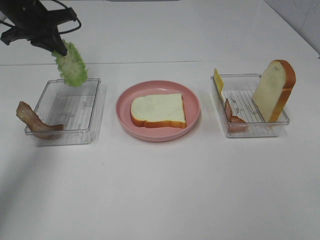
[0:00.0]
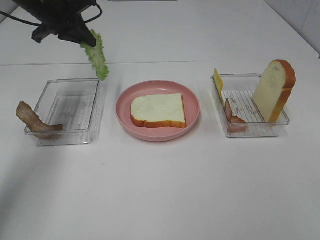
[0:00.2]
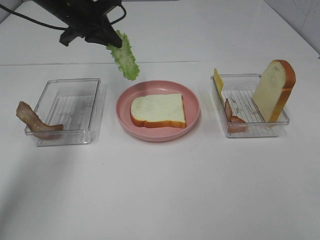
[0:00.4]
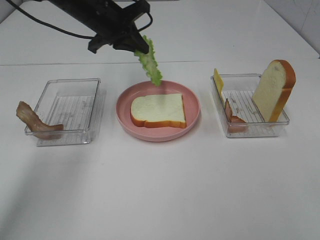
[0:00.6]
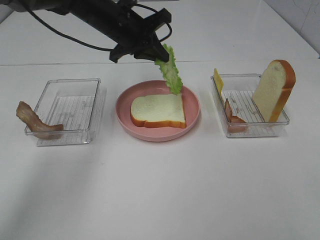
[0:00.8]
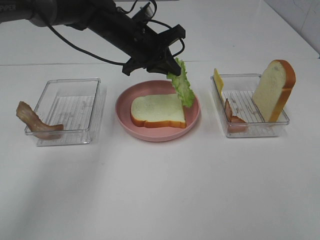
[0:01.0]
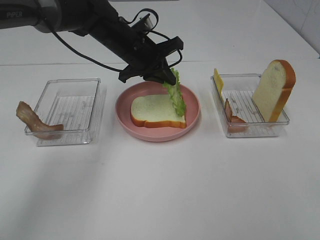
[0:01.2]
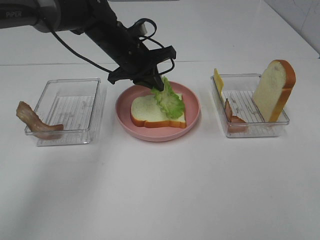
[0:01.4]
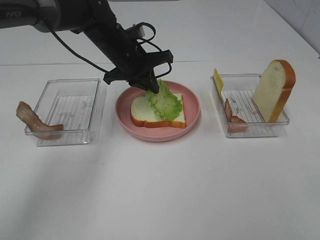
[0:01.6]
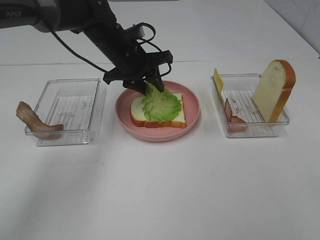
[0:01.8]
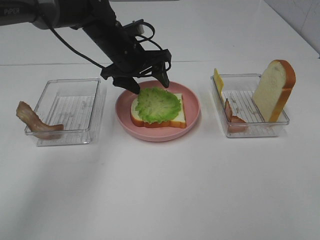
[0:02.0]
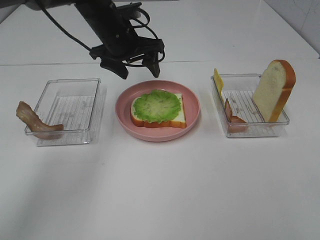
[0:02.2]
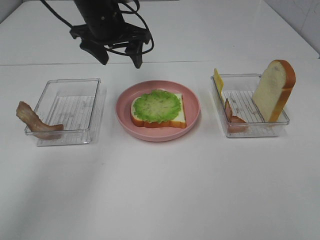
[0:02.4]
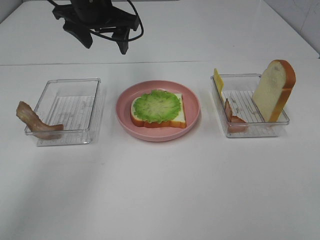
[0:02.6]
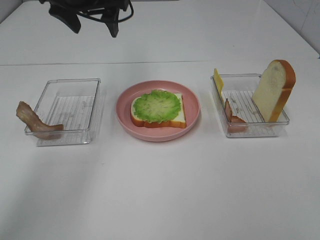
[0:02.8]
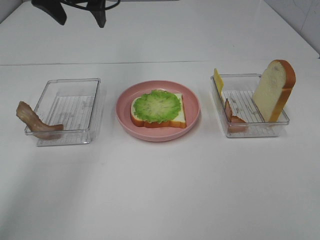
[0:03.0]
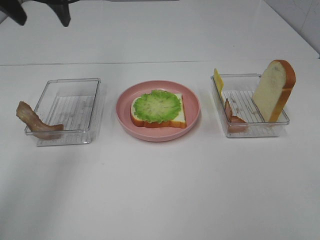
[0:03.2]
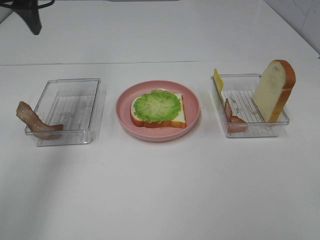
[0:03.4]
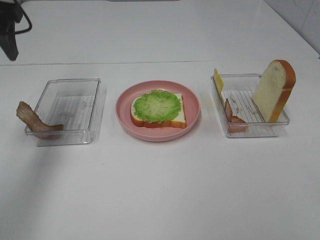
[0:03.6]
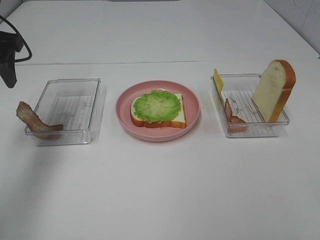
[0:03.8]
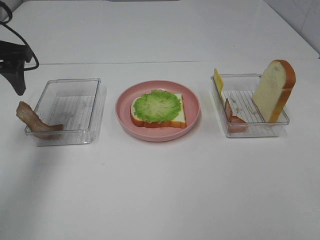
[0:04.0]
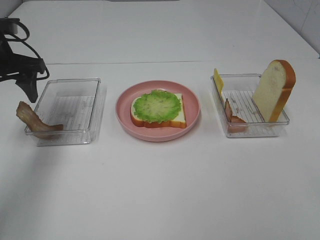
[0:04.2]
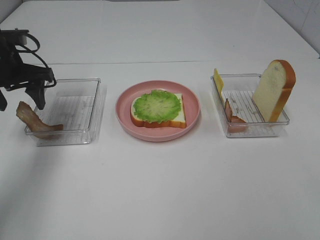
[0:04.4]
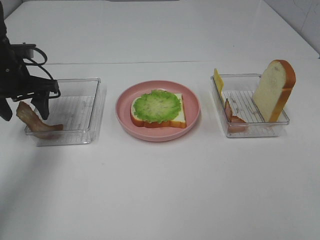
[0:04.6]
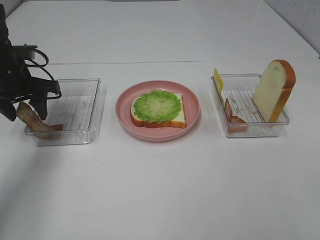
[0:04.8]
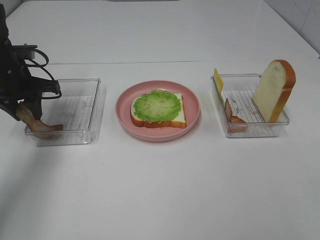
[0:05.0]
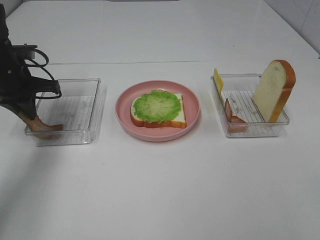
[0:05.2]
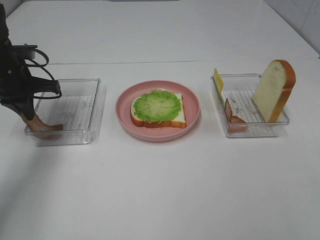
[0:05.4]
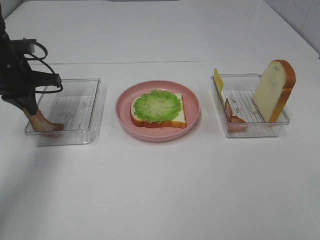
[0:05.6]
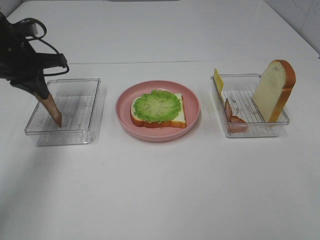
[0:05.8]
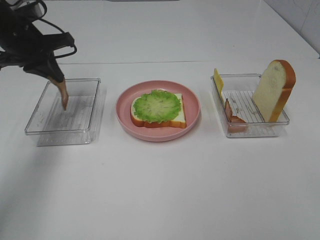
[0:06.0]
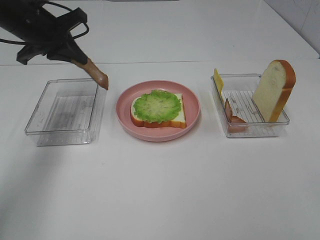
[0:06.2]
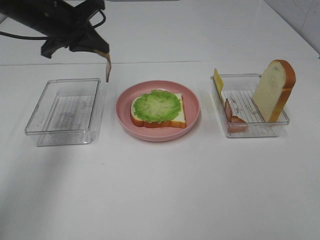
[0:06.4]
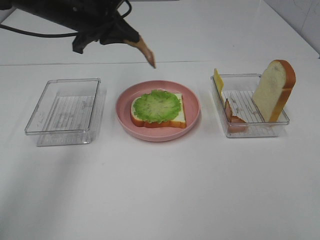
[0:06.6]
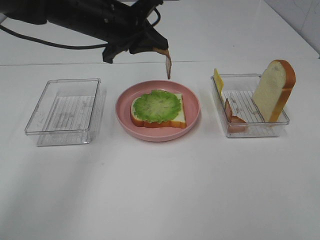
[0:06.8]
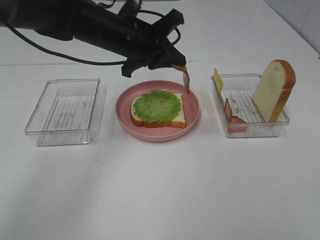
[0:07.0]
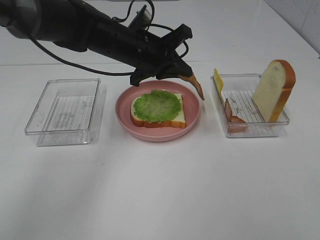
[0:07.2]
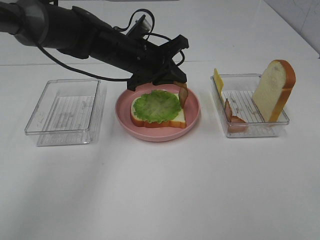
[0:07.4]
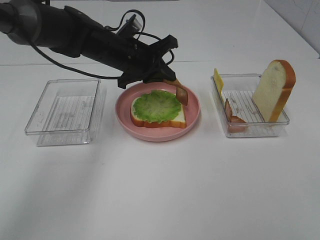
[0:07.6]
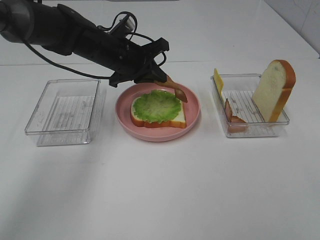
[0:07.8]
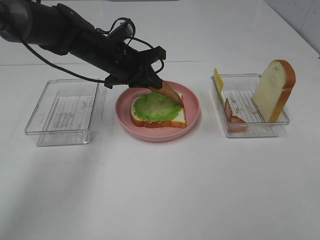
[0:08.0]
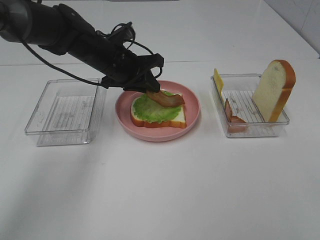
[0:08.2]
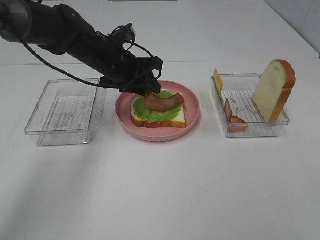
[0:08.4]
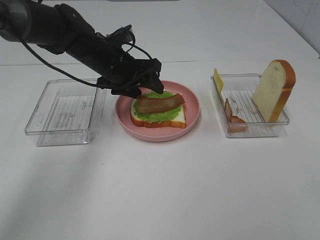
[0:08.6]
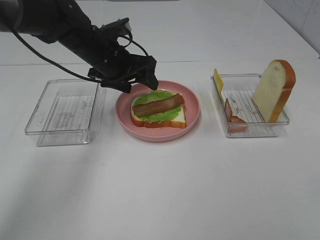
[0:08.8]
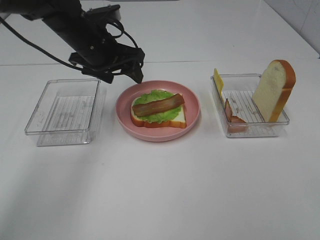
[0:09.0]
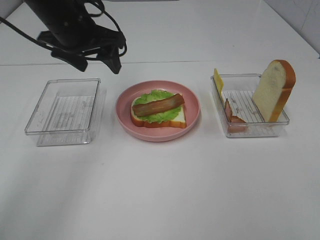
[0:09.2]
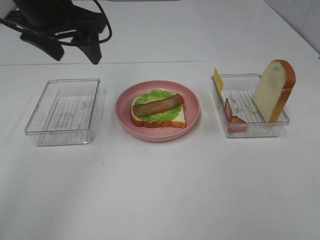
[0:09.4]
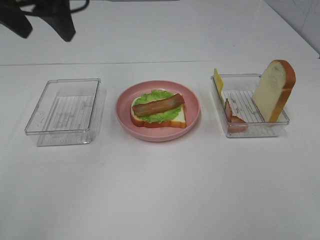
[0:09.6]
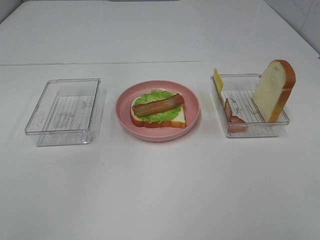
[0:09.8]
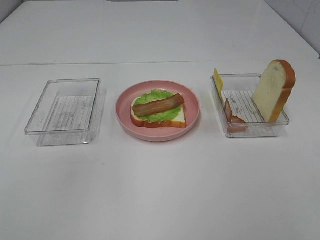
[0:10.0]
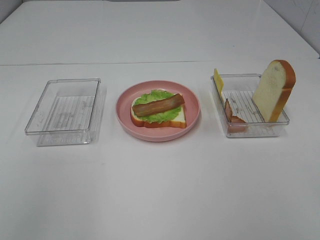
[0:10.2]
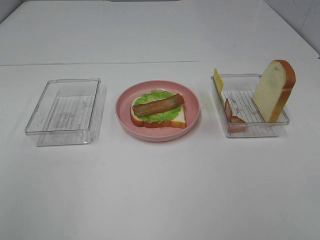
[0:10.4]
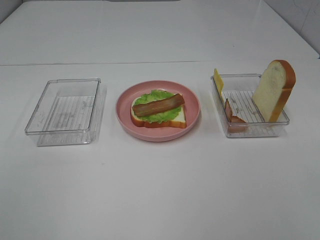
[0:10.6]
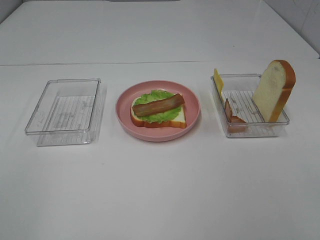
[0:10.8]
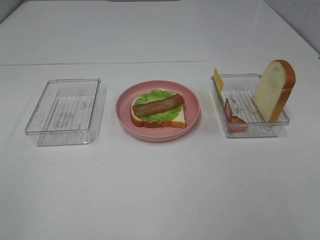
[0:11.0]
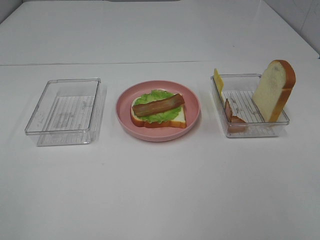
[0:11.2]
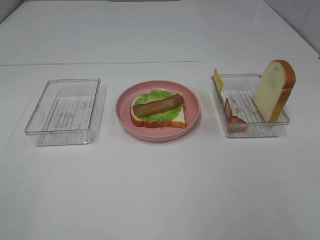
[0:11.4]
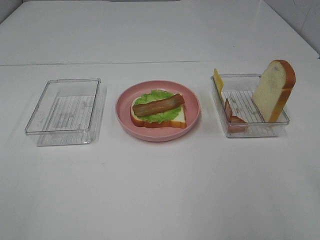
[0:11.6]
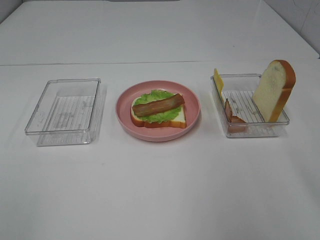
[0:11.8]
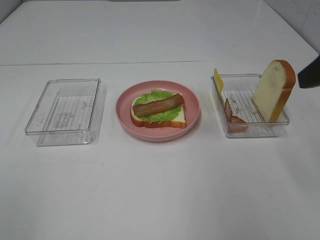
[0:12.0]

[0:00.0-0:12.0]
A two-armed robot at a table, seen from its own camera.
Task of the whole recording: Make sandwiches.
Step, 0:00.0 to 0:02.2: Left hand:place the lettuce slice on the bread slice.
Step, 0:02.4 to 0:05.2: Left hand:grab the bacon.
Step, 0:05.4 to 0:09.0: Left hand:place bacon on lettuce slice.
0:00.0 to 0:01.6: The left gripper travels to the right and downward by roughly 20 cm.
0:01.6 to 0:03.0: The left gripper shifts about 20 cm upward and to the left, and opens its fingers.
0:03.0 to 0:04.4: The left gripper shifts about 20 cm downward and to the left.
0:04.4 to 0:06.0: The left gripper ends up about 5 cm from where it was, and closes up.
0:06.0 to 0:07.6: The left gripper heads to the right, covering about 15 cm.
0:07.6 to 0:09.0: The left gripper changes place by approximately 5 cm, and opens up.
0:09.0 to 0:10.4: The left gripper travels backward, upward and to the left by roughly 40 cm.
0:10.4 to 0:12.0: The right gripper goes approximately 20 cm forward.

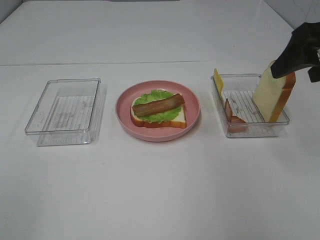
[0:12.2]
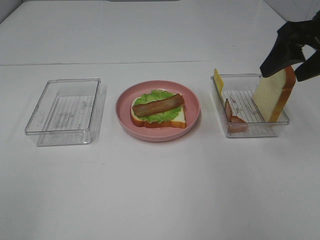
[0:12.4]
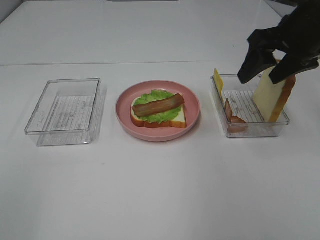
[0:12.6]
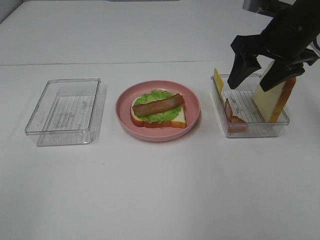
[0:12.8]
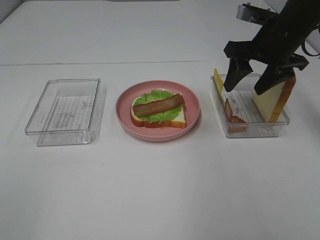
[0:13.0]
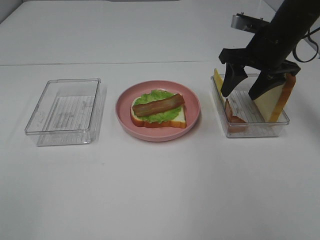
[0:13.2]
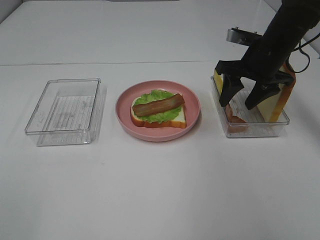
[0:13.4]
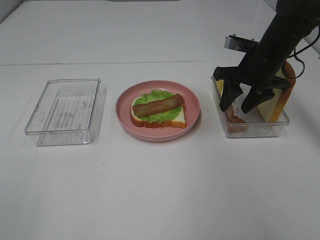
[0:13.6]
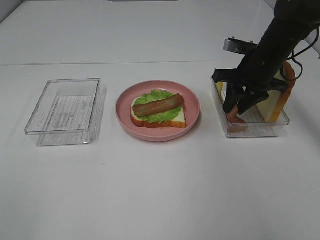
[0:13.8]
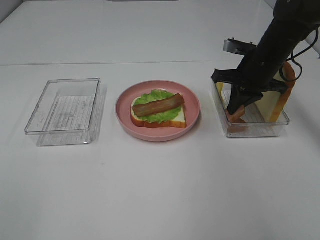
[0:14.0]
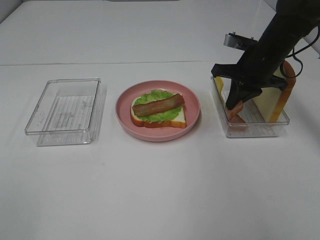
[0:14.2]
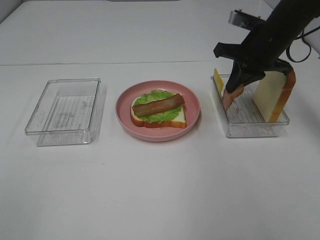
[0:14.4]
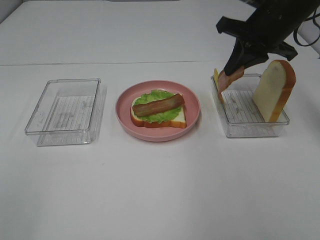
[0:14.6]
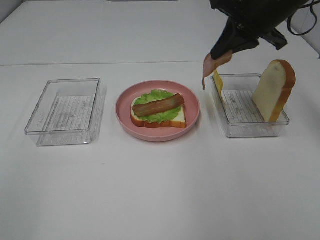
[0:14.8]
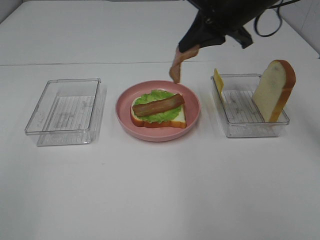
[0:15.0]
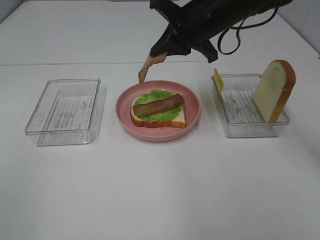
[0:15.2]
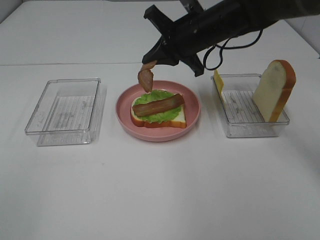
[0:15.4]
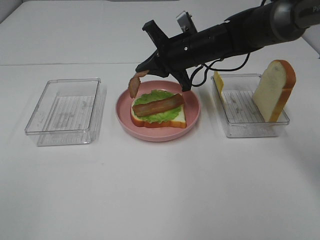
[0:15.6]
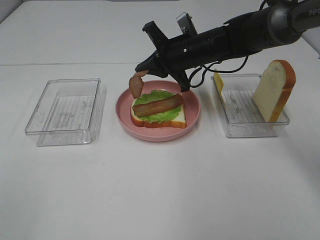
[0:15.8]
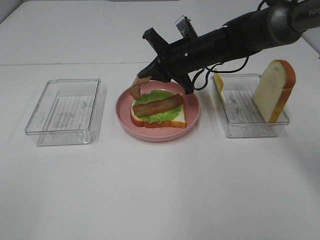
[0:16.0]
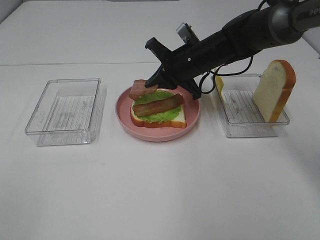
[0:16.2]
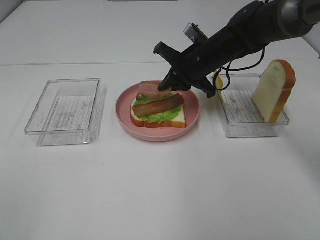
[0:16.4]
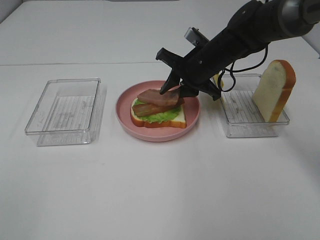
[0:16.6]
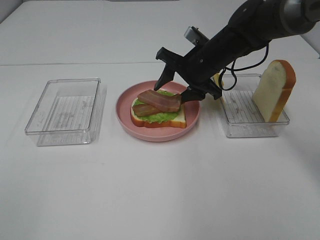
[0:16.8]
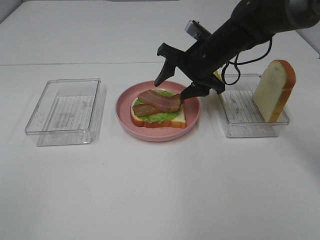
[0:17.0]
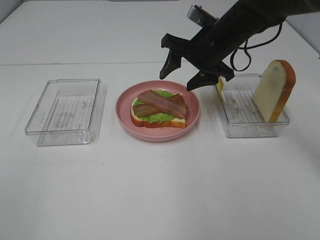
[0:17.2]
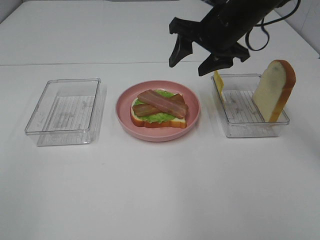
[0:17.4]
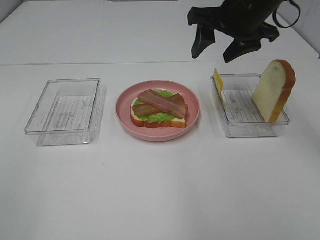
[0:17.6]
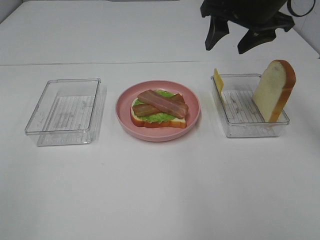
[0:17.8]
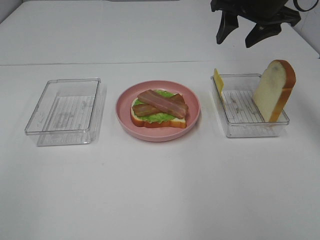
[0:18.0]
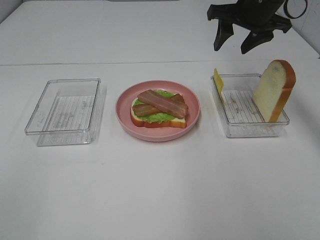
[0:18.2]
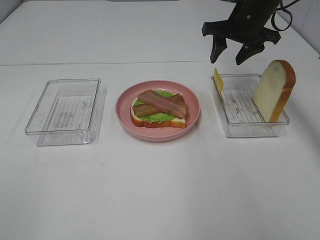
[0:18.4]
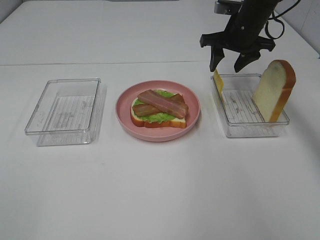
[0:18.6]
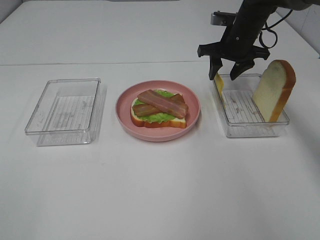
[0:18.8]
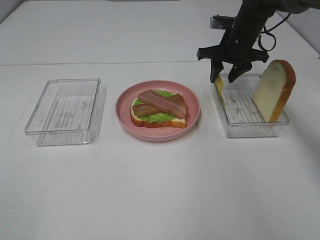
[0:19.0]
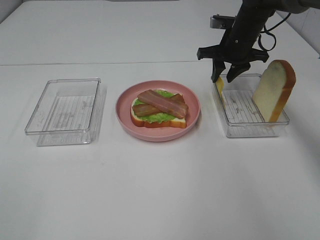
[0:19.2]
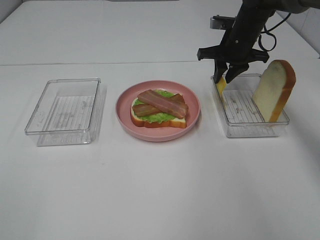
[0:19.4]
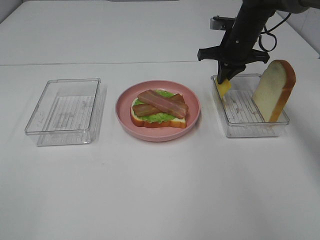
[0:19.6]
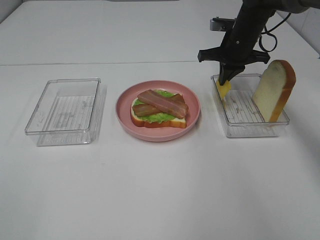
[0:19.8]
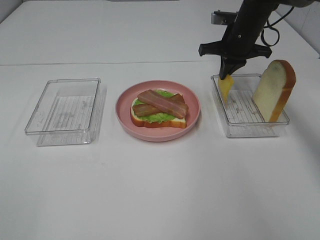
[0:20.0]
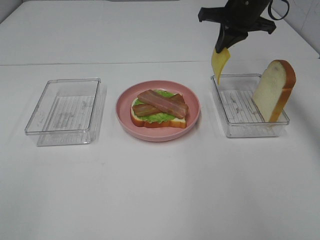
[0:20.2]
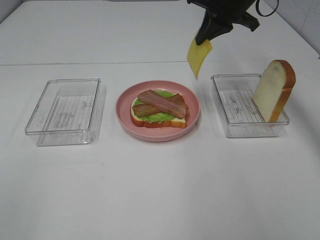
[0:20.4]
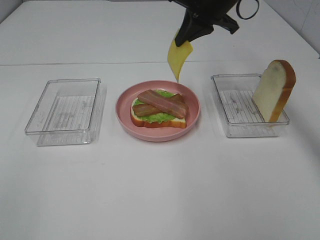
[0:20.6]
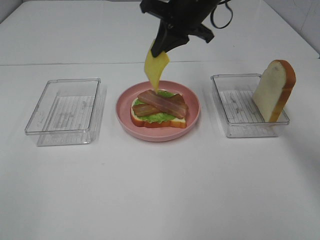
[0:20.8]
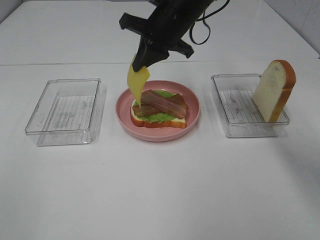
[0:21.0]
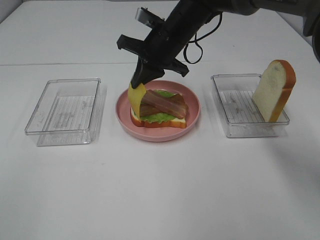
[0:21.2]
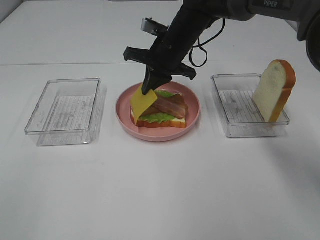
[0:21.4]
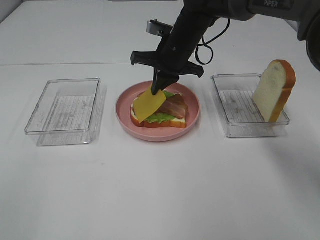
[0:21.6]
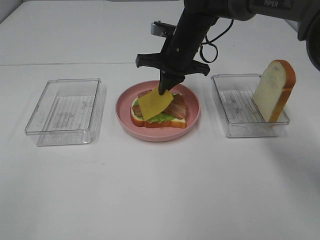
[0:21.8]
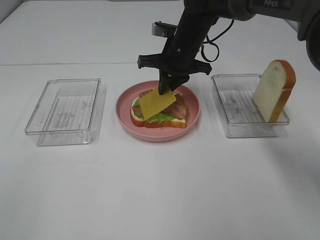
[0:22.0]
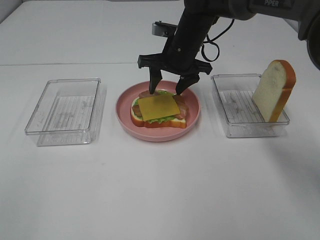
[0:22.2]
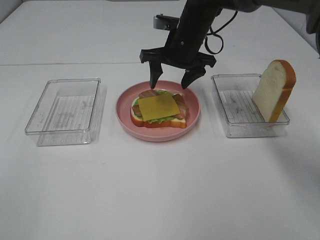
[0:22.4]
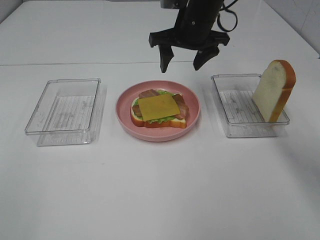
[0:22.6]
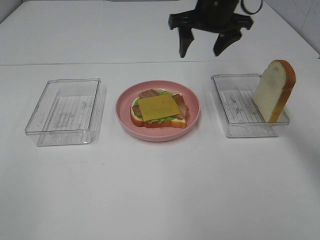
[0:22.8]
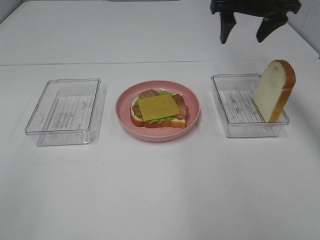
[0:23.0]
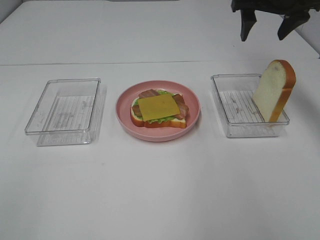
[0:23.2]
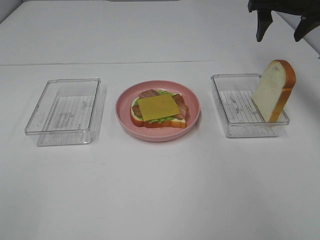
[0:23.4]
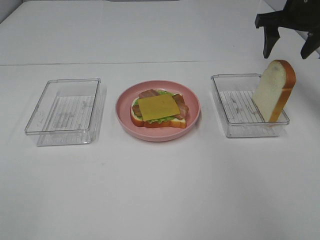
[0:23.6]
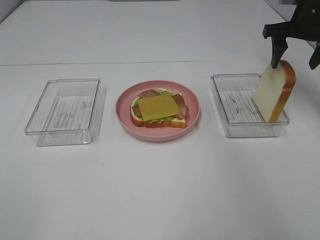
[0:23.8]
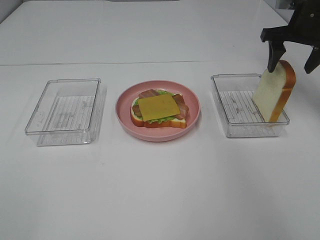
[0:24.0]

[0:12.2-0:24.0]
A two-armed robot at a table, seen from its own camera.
Task of the whole recording: Make sandwiches.
Step, 0:14.0 to 0:17.2: Right hand:place bacon on bacon.
Step, 0:17.4 to 0:19.8: Right hand:grab the cheese slice.
Step, 0:20.0 to 0:22.2: Right hand:place the cheese slice on top of the bacon.
0:12.2 to 0:13.6: The right gripper shifts roughly 20 cm downward, forward and to the left.
0:13.6 to 0:15.2: The right gripper travels to the left and upward by approximately 15 cm, and closes up.
0:15.2 to 0:16.6: The right gripper moves downward, some 10 cm, and opens up.
0:16.6 to 0:18.2: The right gripper goes about 15 cm upward and to the right, and opens up.
0:18.2 to 0:19.6: The right gripper goes approximately 10 cm downward, and closes its fingers.
0:19.6 to 0:21.0: The right gripper moves to the left, backward and upward, some 15 cm.
0:21.0 to 0:22.6: The right gripper opens up.
0:22.6 to 0:24.0: The right gripper goes roughly 20 cm to the right.
